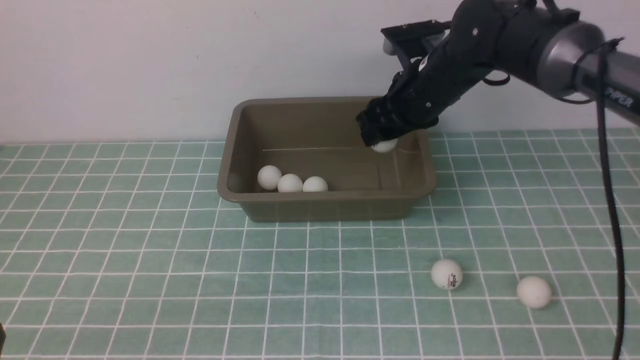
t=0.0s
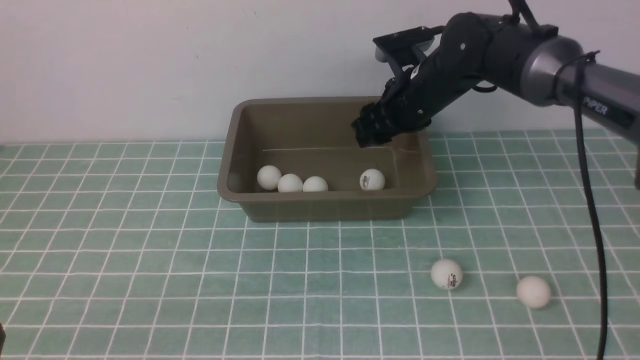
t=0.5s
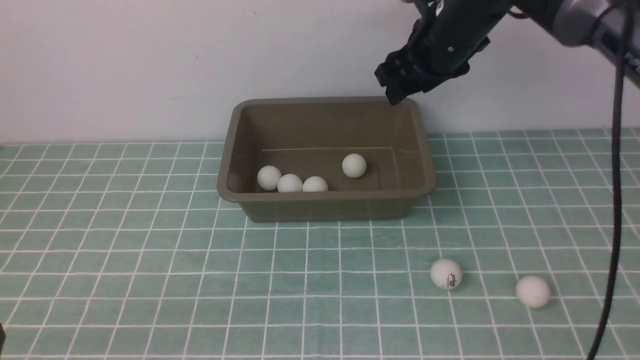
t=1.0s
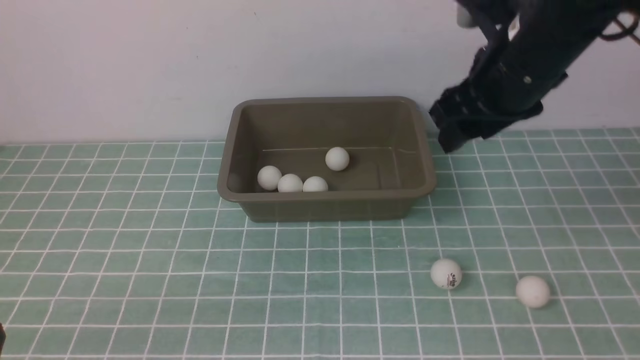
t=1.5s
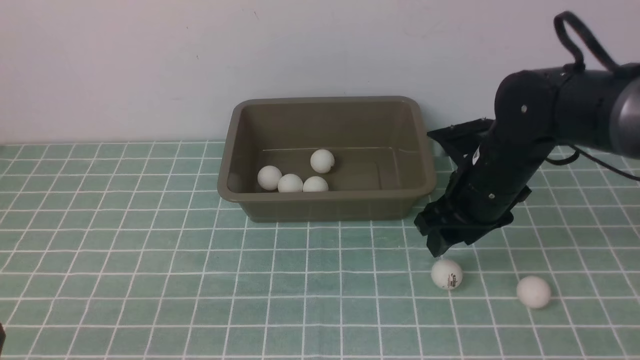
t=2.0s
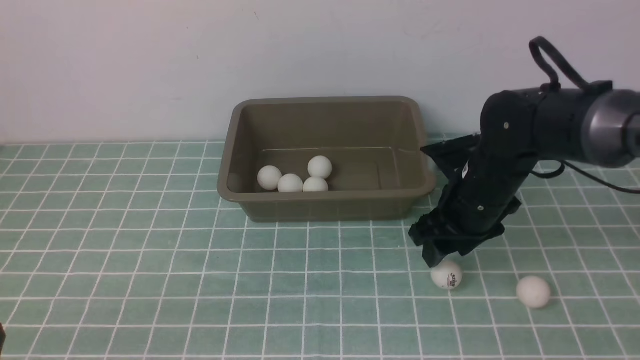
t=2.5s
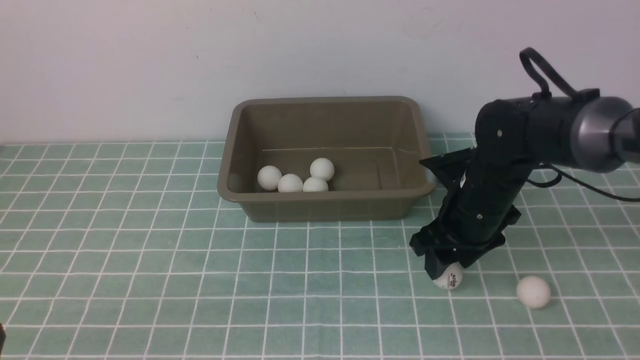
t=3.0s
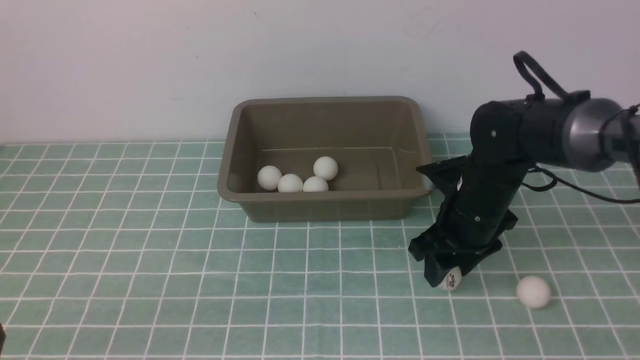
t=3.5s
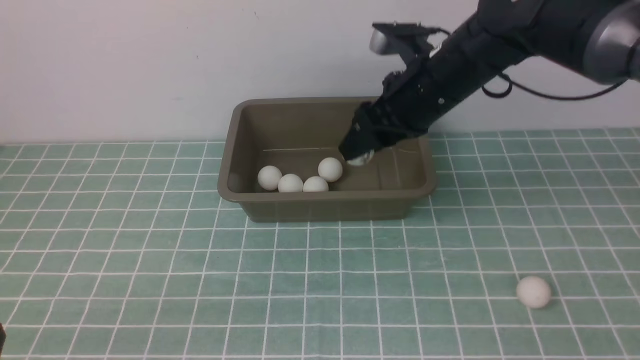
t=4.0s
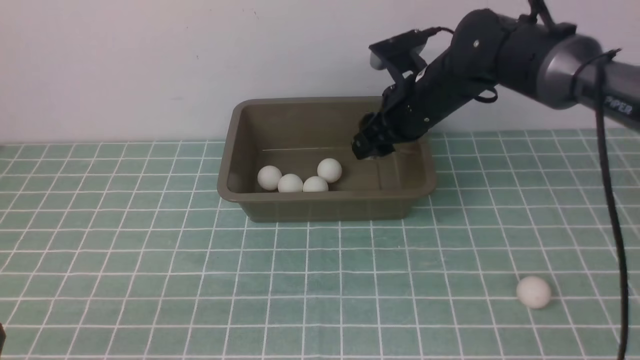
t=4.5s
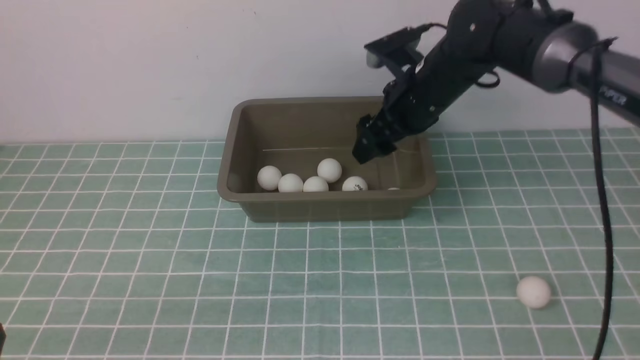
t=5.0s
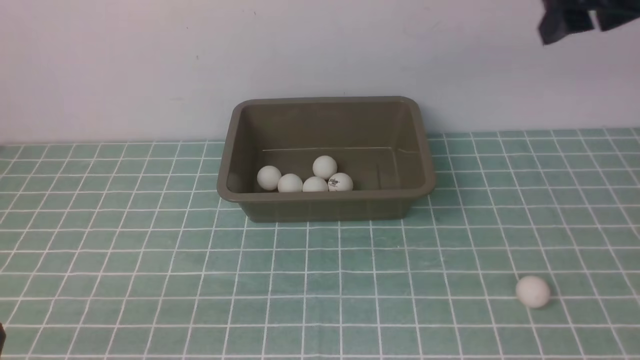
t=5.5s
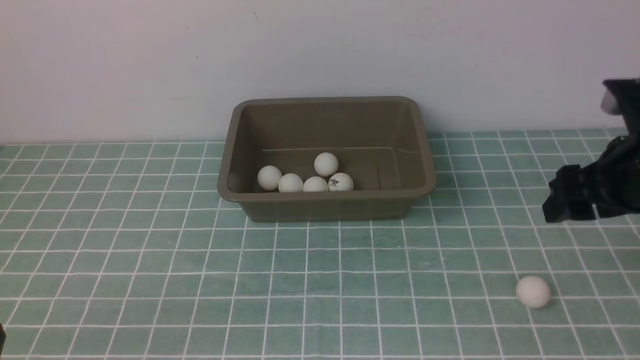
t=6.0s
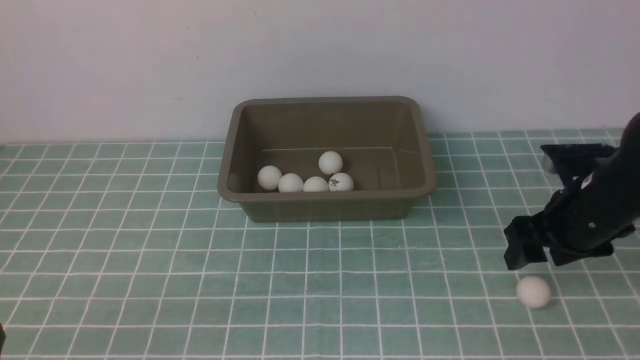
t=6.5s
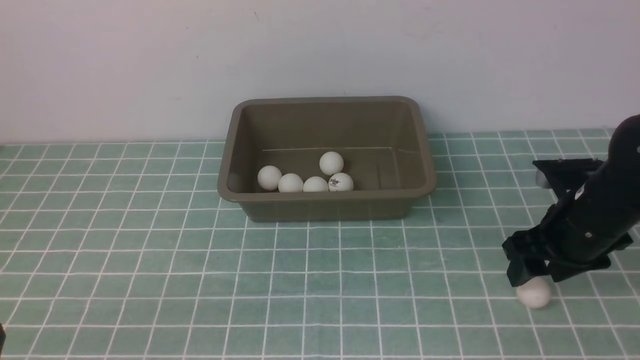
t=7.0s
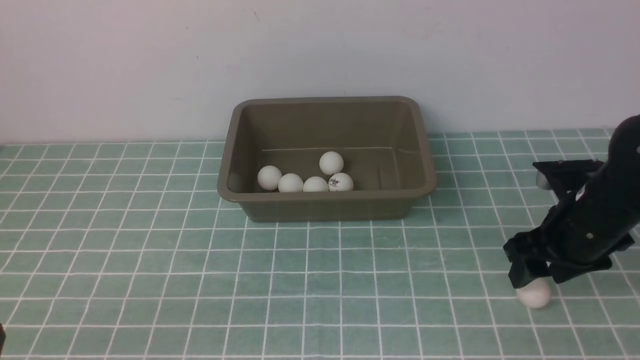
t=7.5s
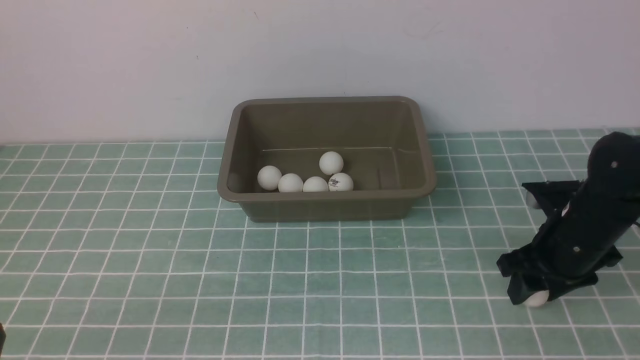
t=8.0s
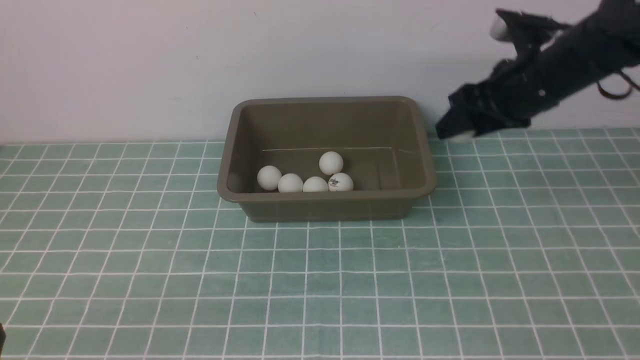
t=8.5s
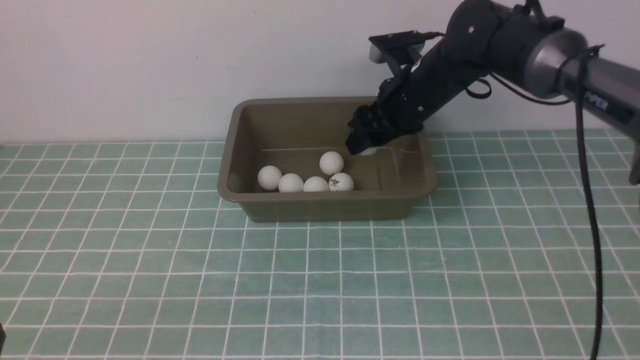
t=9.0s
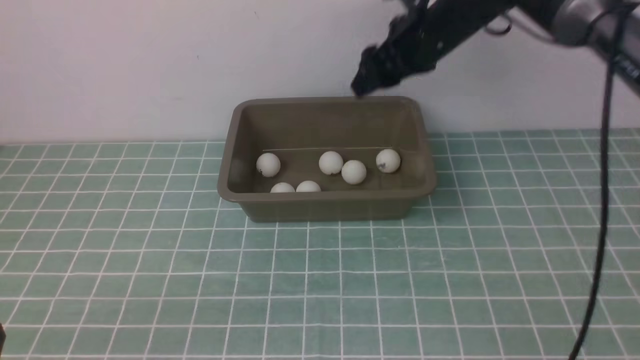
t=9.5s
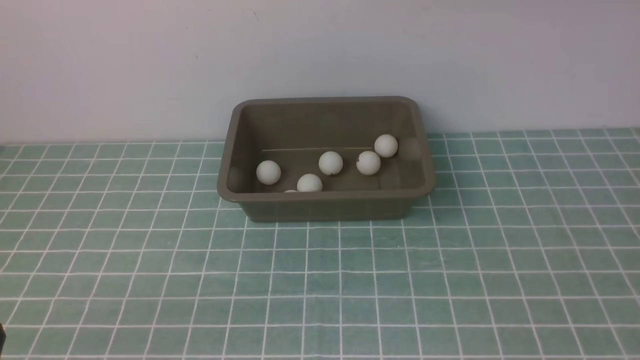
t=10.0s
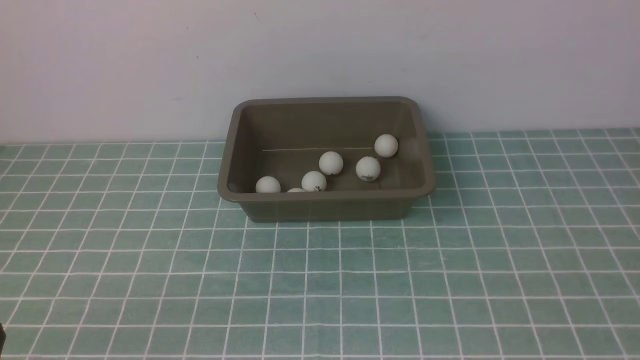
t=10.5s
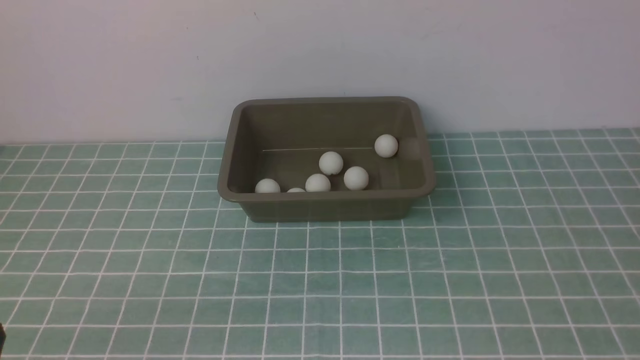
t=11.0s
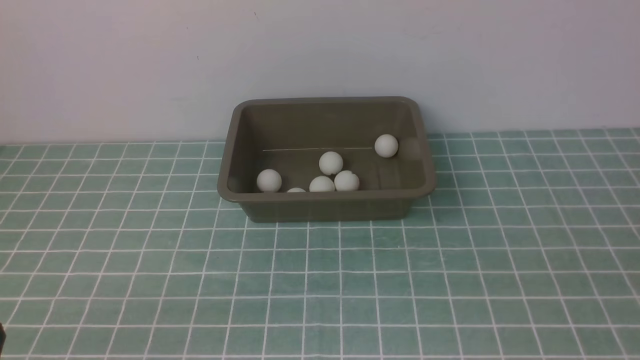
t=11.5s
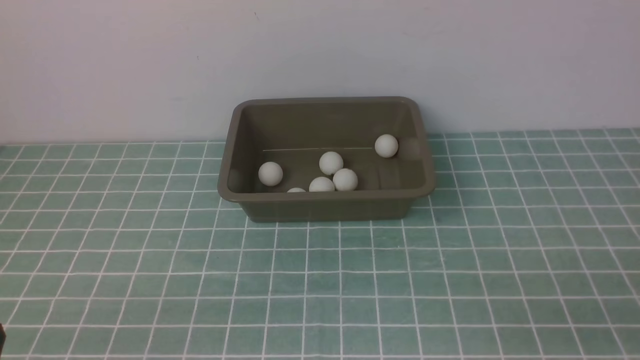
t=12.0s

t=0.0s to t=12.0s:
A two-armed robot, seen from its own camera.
Step, t=1.0s to t=3.5s: use the right arm to clamp the table tennis ball closest to it.
Step, t=4.0s to t=4.5s: use the right arm to put the table tennis ball into the box.
Step, t=5.0s to t=8.0s: use the right arm to clamp the table tennis ball closest to it.
Step, t=8.5s to t=9.0s: use the right arm to put the table tennis ball into the box.
t=0.0s to t=2.0s: The right gripper is displaced backward by some 10 cm, and moves approximately 10 cm upward and comes back.
t=2.0s to t=4.0s: The right gripper is displaced upward and to the left by approximately 5 cm.
t=4.0s to t=6.0s: The right gripper heads to the right and backward, covering roughly 20 cm.
t=6.0s to t=8.0s: The right gripper shifts some 10 cm downward.
t=8.0s to t=10.0s: The right gripper moves up and down over approximately 35 cm, changing direction 2 times, and closes.
t=10.0s to t=12.0s: The right gripper travels downward and backward by some 35 cm.

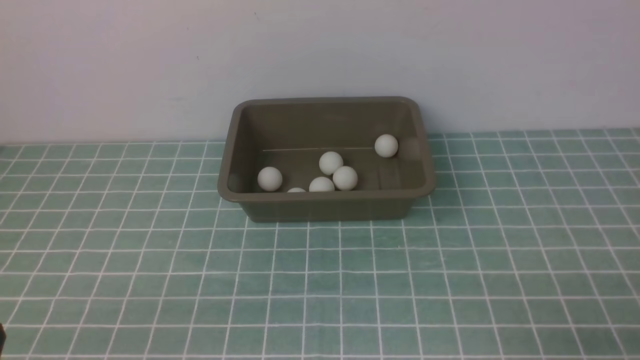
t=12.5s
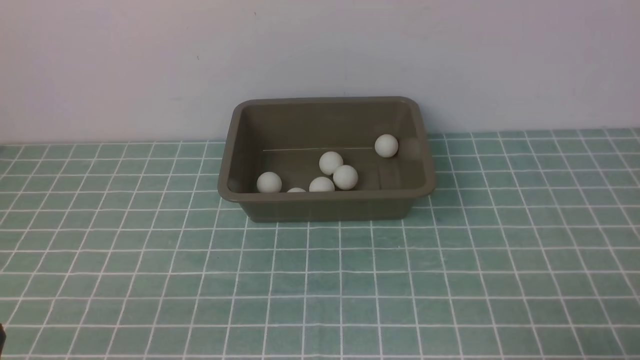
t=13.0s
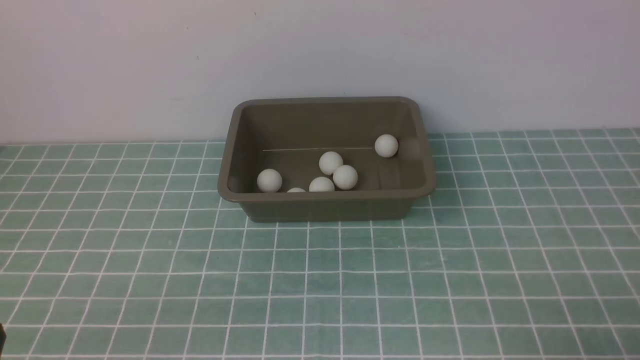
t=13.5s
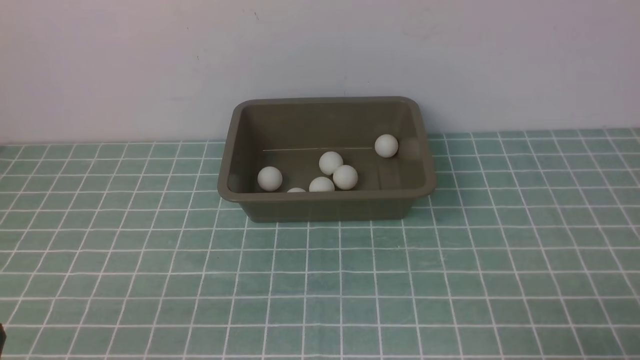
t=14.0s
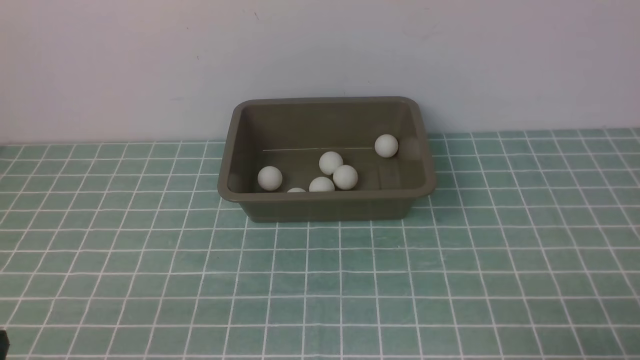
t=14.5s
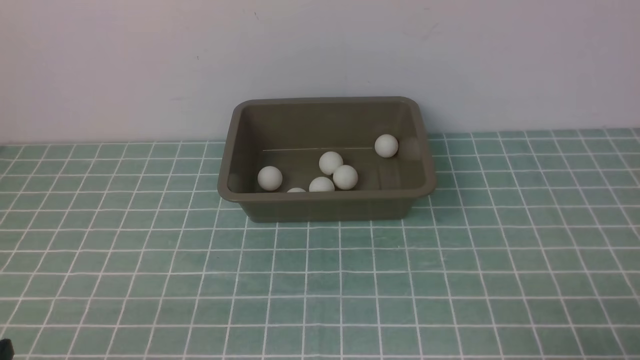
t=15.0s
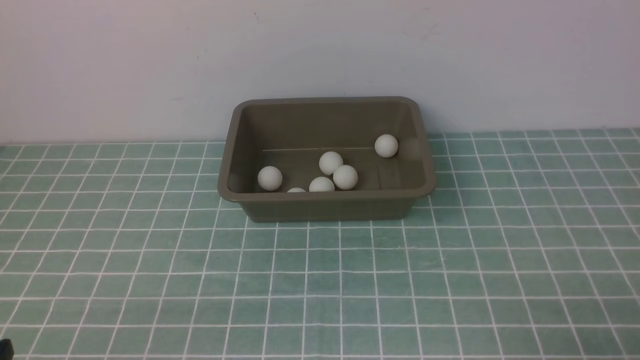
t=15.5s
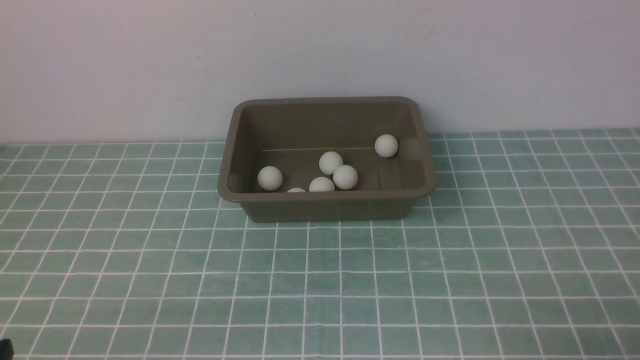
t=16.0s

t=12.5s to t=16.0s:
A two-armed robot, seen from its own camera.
t=14.5s to t=16.0s: Neither gripper changes place.
